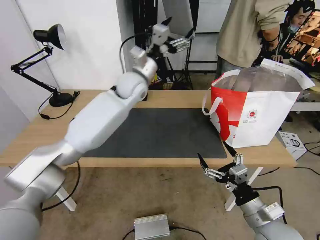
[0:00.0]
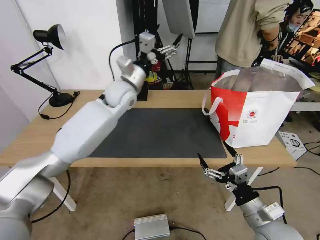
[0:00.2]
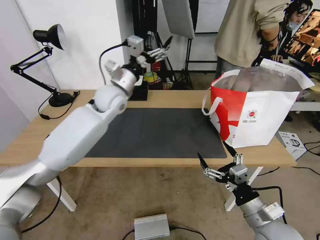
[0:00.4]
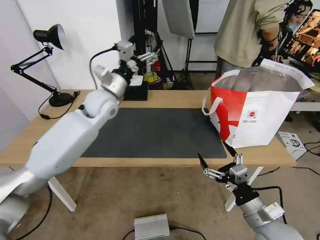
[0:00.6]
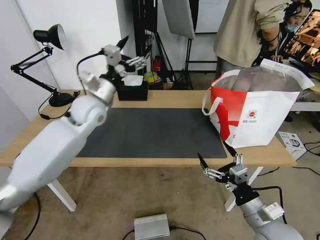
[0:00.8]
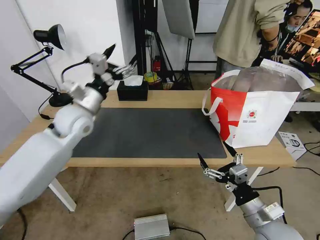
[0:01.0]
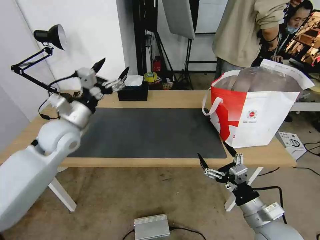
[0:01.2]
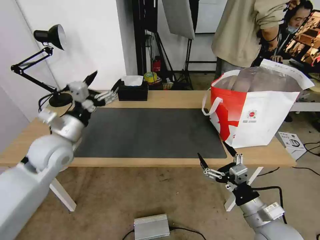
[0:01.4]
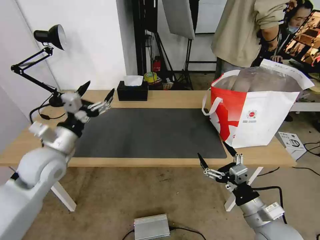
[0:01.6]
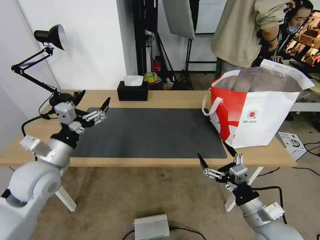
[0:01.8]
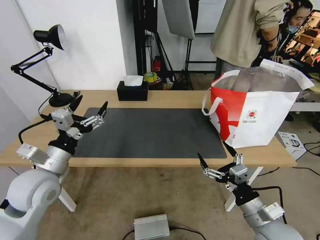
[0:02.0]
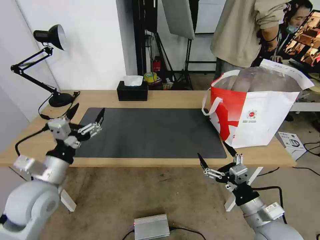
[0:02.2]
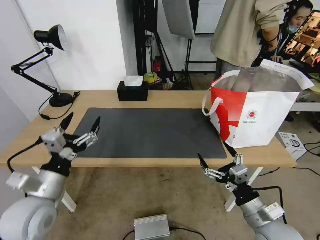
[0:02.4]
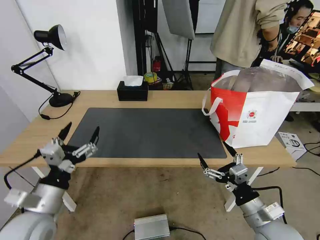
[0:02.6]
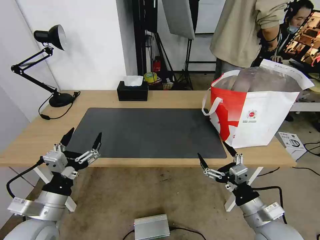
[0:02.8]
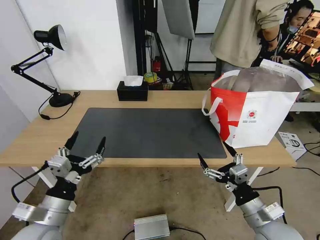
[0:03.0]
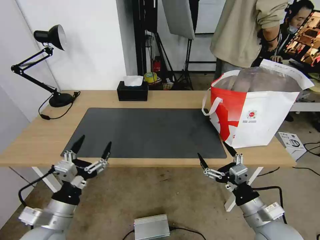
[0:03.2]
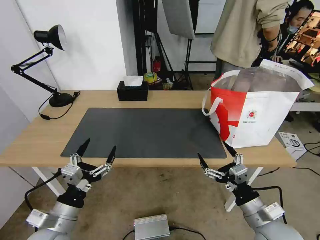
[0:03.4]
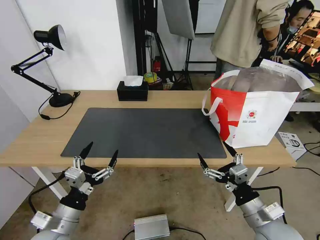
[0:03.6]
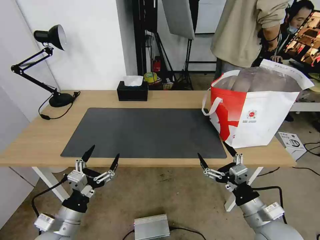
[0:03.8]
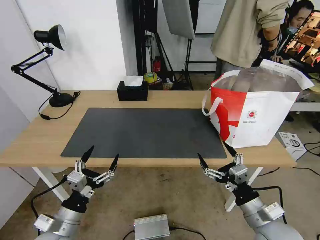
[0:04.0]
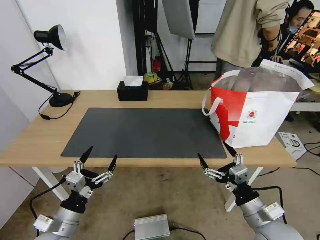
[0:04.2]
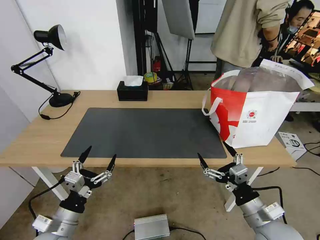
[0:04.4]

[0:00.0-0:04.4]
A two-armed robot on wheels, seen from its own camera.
Task of the whole recording: Pick up the trash from the table and place it into the takeout bag.
0:00.0 to 0:01.4: The left gripper goes roughly 30 cm backward and to the left.
0:01.4 to 0:03.0: The left gripper is displaced backward and downward by approximately 20 cm.
0:03.0 to 0:04.4: The left gripper travels downward by approximately 5 cm.
